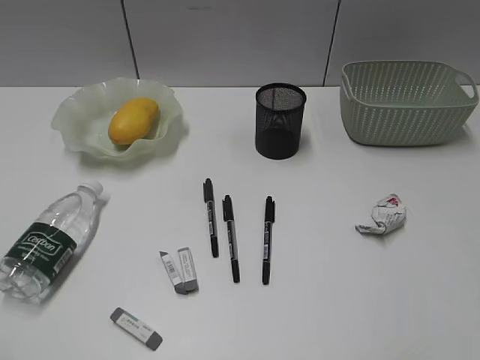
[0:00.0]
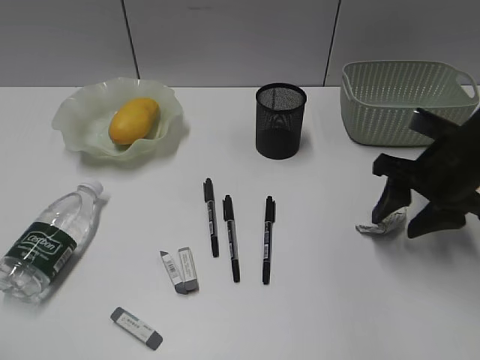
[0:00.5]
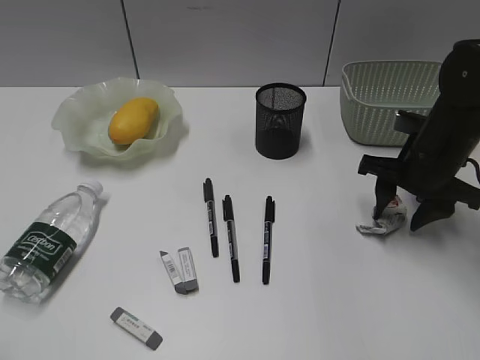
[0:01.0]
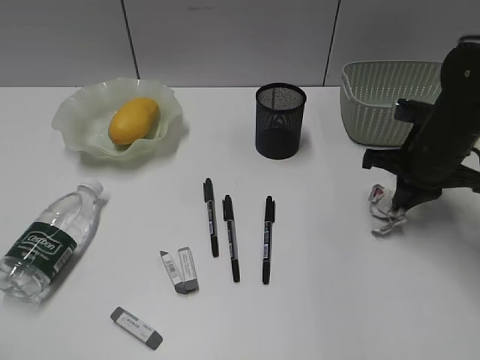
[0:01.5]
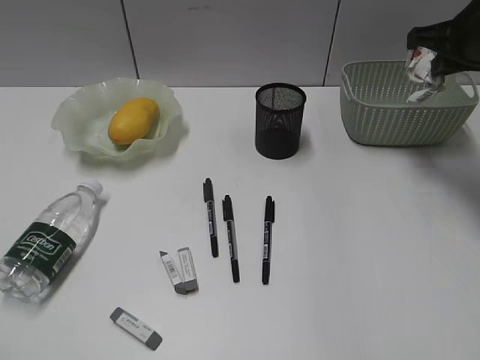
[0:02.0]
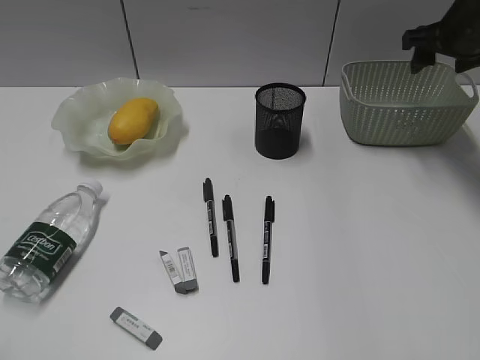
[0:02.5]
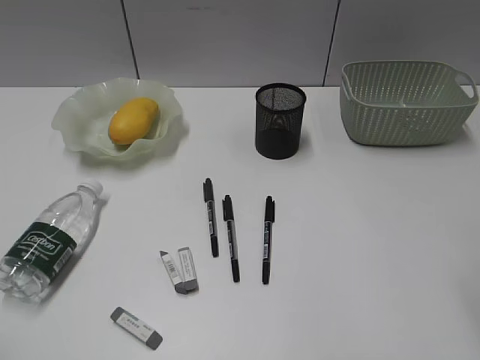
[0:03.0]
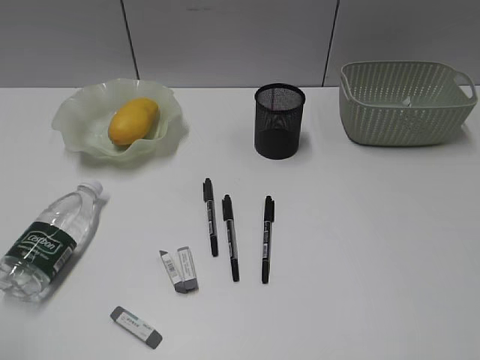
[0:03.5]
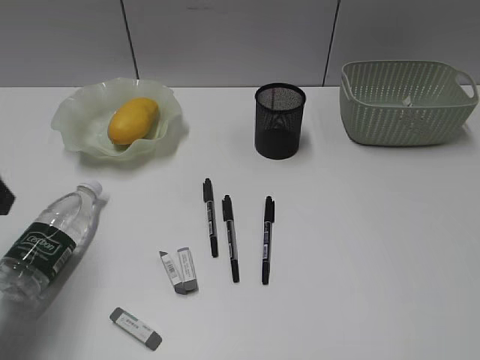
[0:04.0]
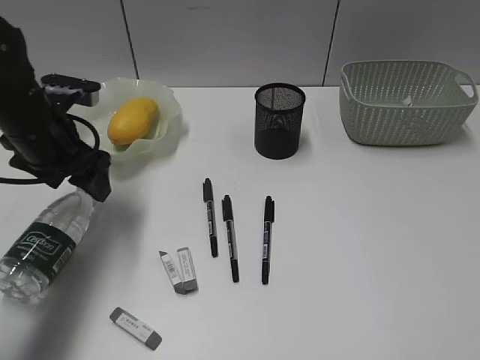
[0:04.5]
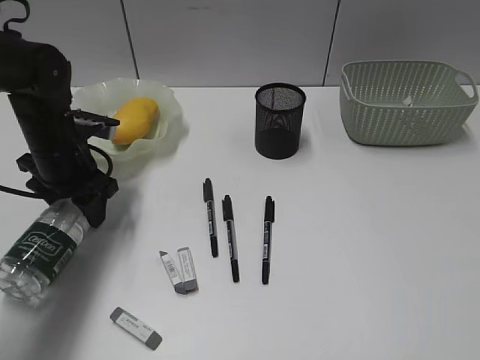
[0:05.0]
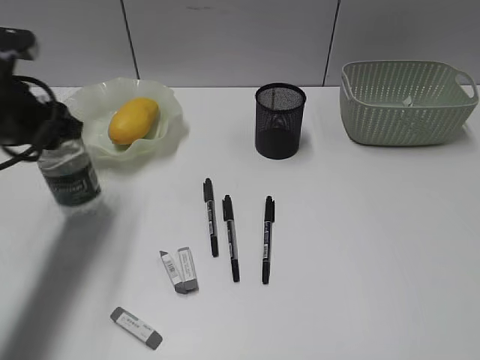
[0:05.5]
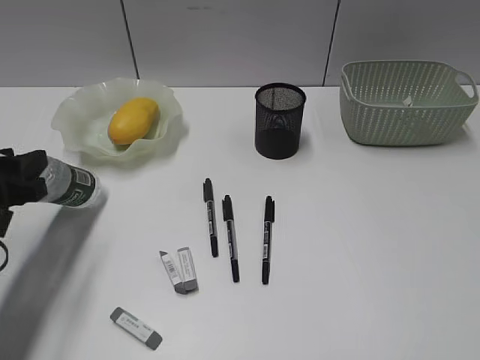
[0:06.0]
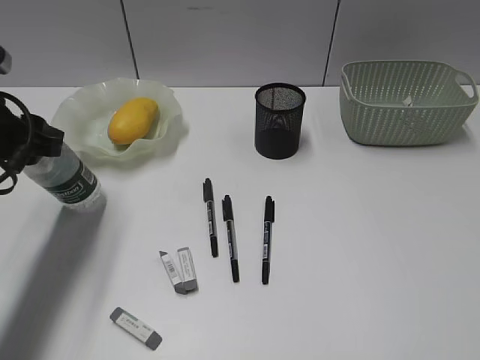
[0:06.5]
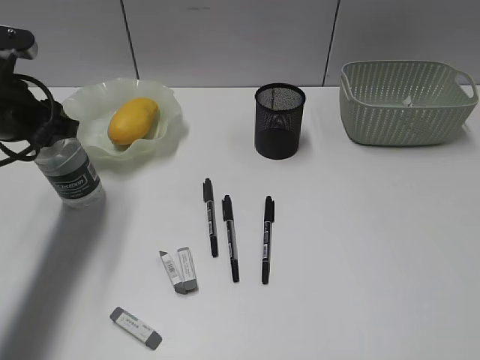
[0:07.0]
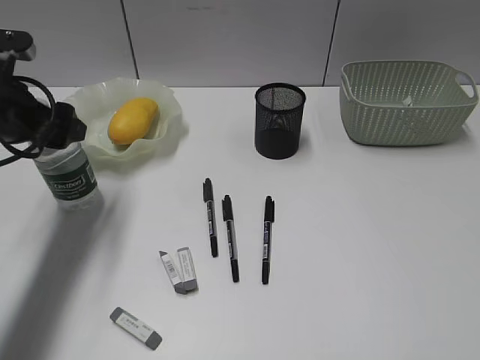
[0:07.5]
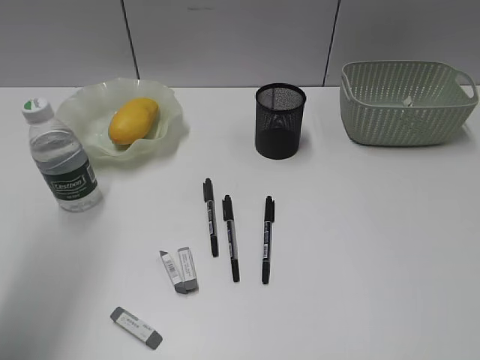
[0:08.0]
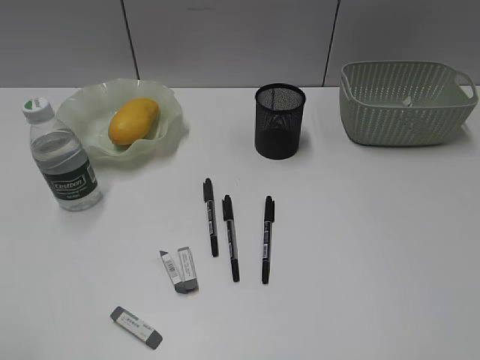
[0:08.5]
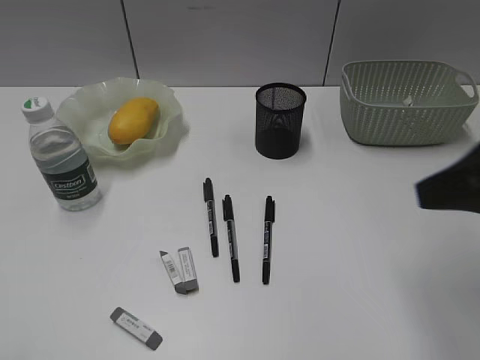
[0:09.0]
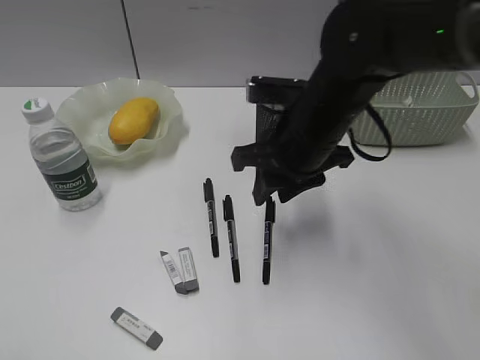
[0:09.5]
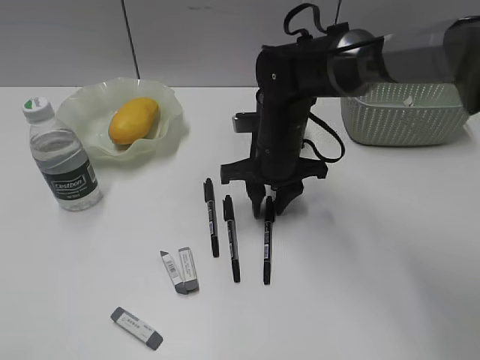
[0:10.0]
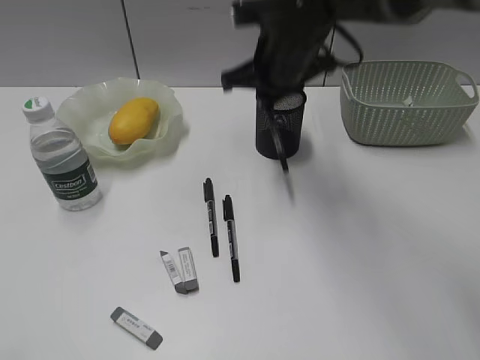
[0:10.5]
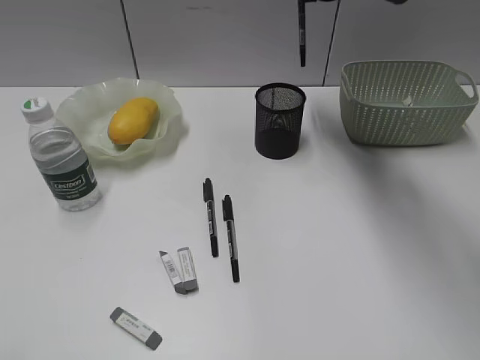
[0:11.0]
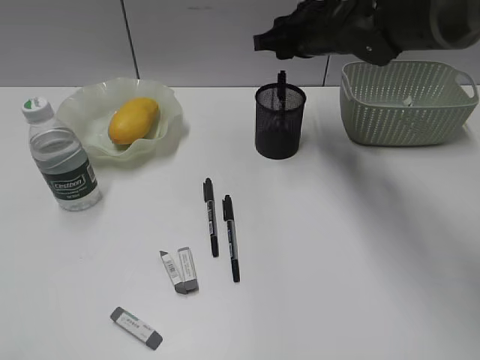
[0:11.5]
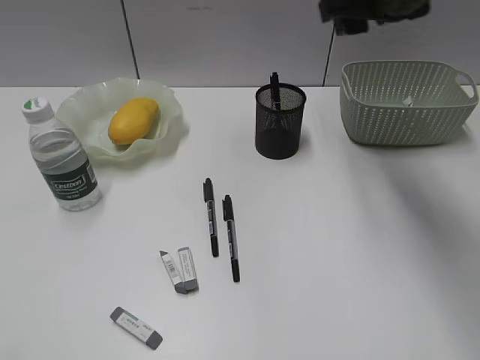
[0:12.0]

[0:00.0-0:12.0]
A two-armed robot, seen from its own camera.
Step, 0:00.0 to 0:01.5: Grasp the waste paper with right gripper.
Step, 0:02.0 to 0:02.5: Place the waste paper in the basket with right gripper.
Step, 0:03.0 to 0:05.0: Grasp the bottle with left gripper.
Step, 0:05.5 to 0:07.5: Stand the bottle with left gripper.
Step, 0:08.0 to 0:10.0: Grasp the black pen with right gripper.
0:00.0 to 0:02.0: The right gripper heads forward, covering about 25 cm, and closes its fingers.
0:02.0 to 0:04.0: The right gripper moves backward, roughly 40 cm, and opens its fingers. Meanwhile the left gripper heads forward, covering about 20 cm, and opens its fingers.
0:04.0 to 0:06.0: The left gripper heads downward, covering about 10 cm, moves about 15 cm forward and comes back, and closes up.
0:06.0 to 0:08.0: The left gripper shifts about 15 cm upward, and opens up.
0:08.0 to 0:10.0: The right gripper shifts about 50 cm forward, to the left and downward; the left gripper shifts some 20 cm backward.
0:10.0 to 0:12.0: The right gripper moves up and down over about 20 cm, changing direction 2 times, and opens its fingers.

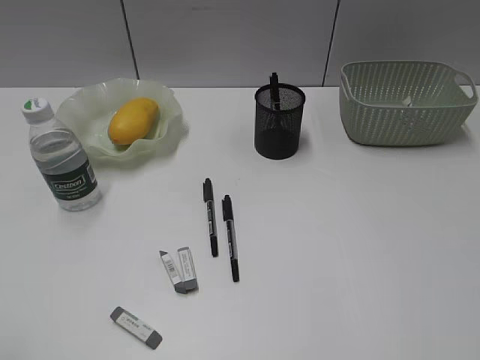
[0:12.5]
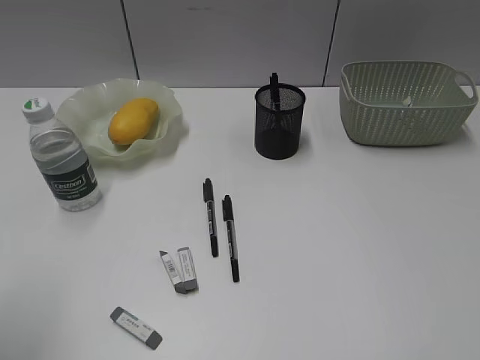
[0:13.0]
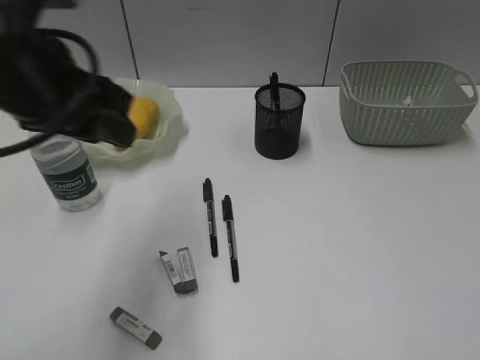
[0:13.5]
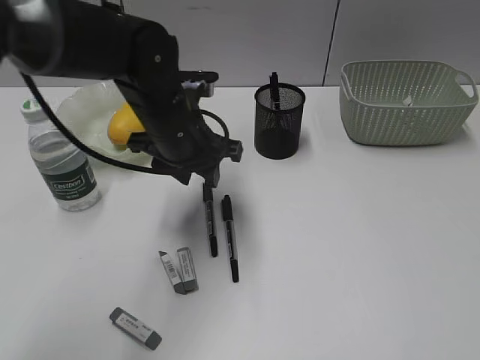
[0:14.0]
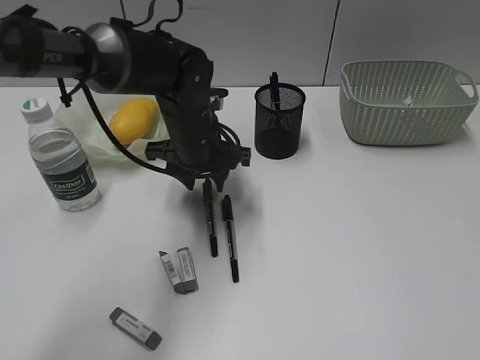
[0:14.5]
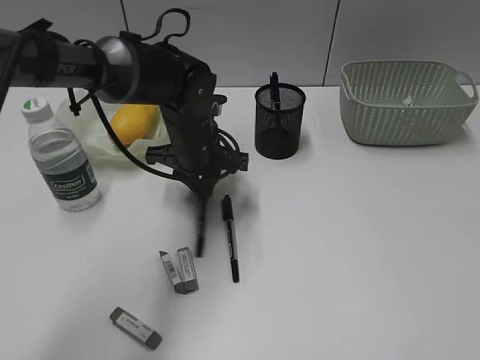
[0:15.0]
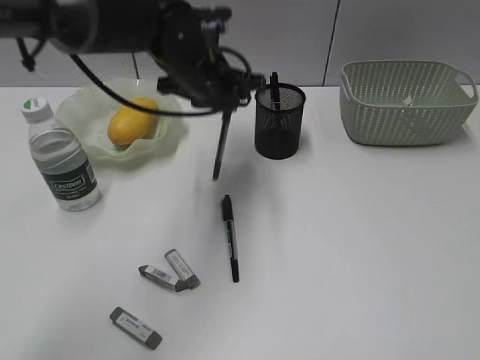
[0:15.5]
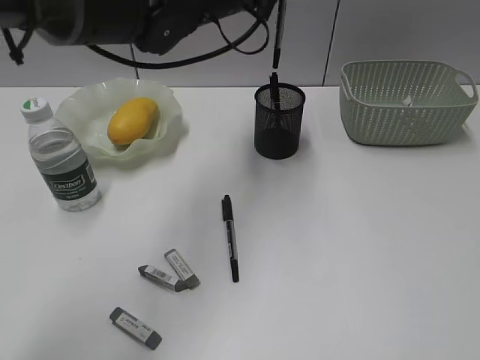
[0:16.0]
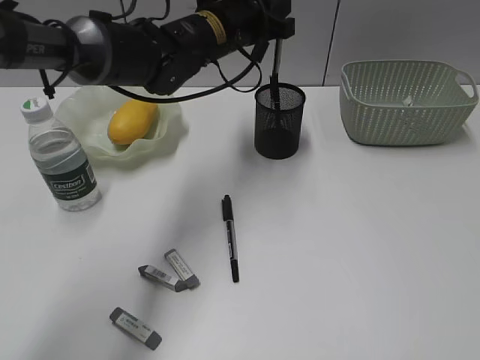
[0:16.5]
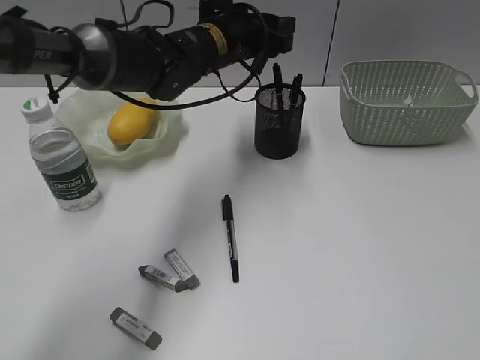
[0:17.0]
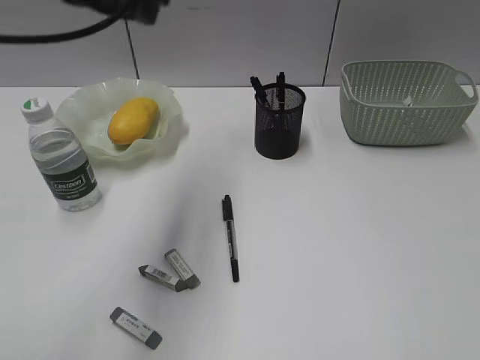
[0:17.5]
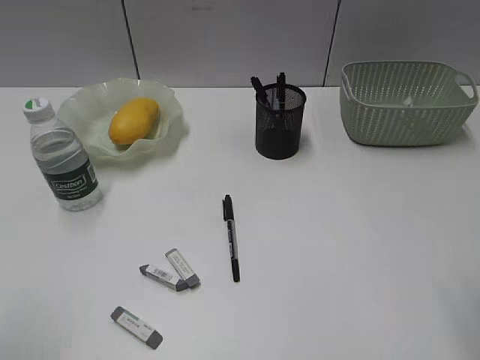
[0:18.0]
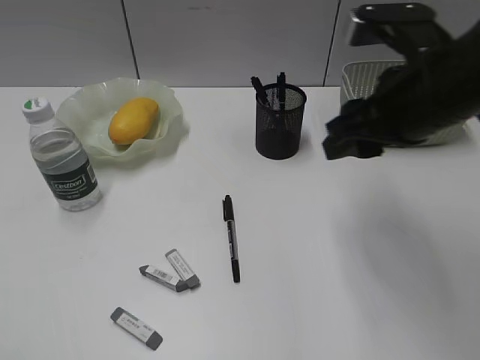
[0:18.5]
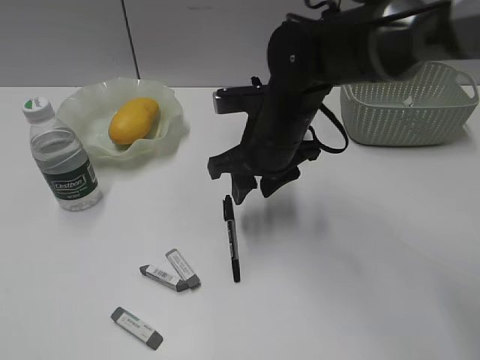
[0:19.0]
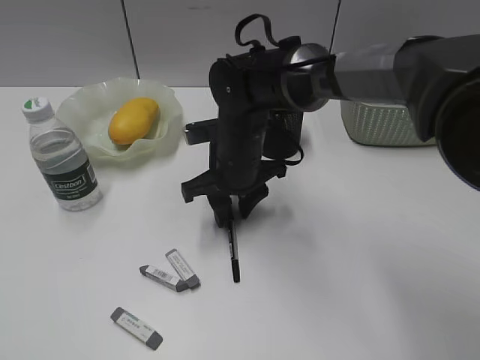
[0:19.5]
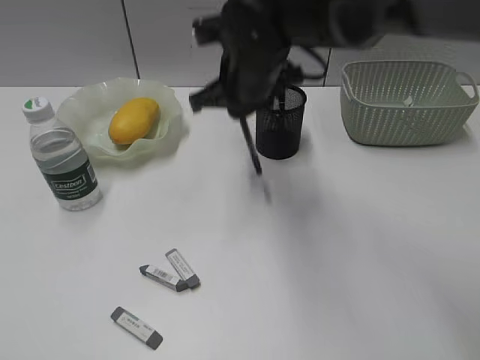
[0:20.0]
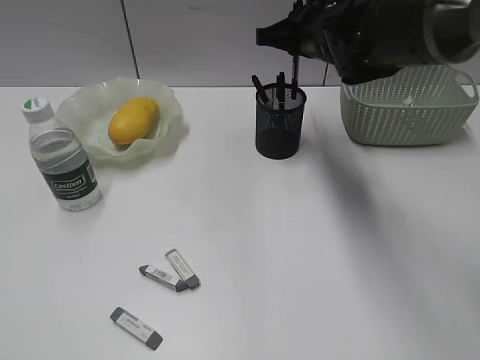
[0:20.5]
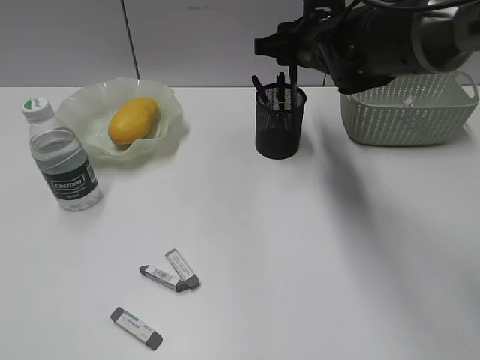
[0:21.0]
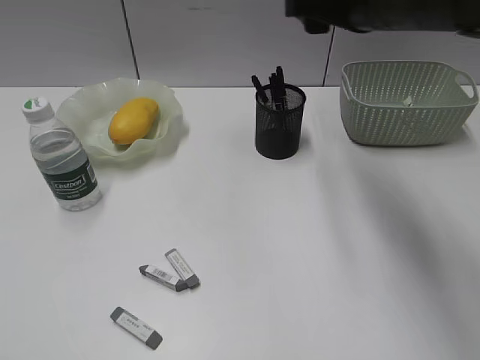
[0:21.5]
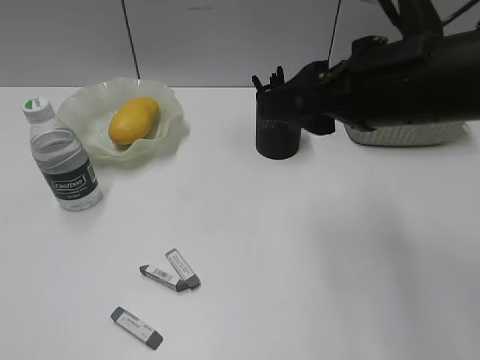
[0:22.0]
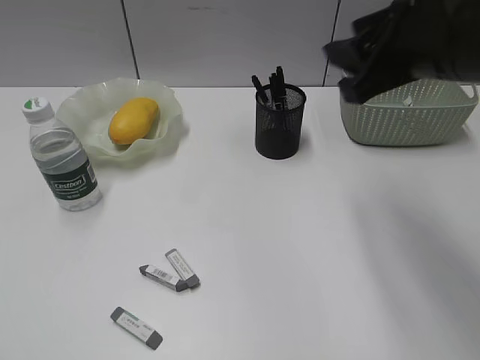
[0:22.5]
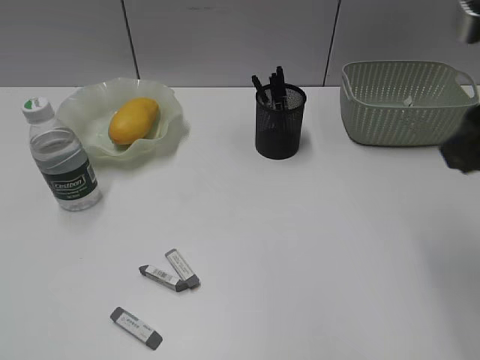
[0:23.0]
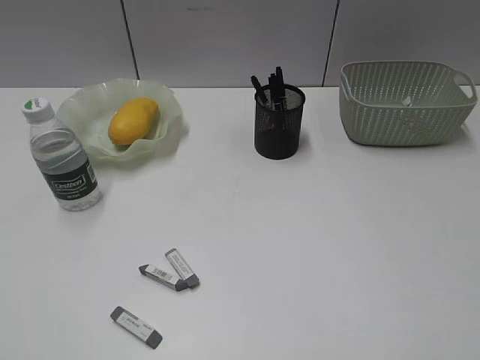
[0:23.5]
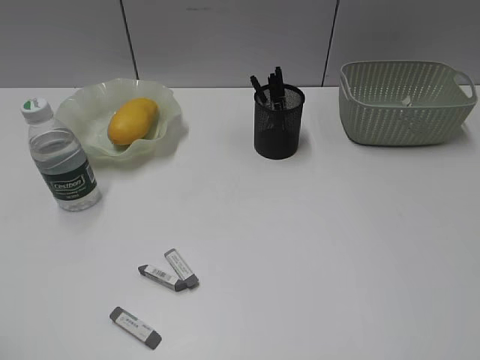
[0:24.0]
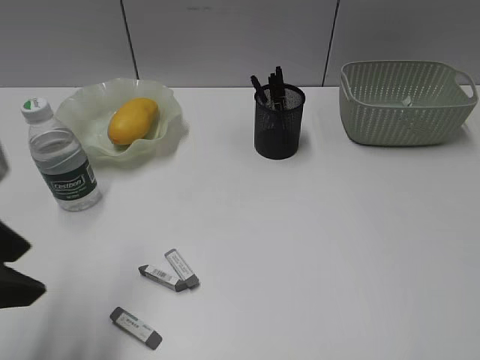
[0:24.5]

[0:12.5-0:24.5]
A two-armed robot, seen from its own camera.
Step, 0:12.5 to 0:15.0: Grasp the black pen with left gripper.
Step, 0:15.5 to 0:17.0: Place the black pen in pen holder with left gripper.
Step, 0:17.5 to 0:19.5: Grasp the black pen with right gripper.
0:12.5 to 0:14.5: The right gripper moves backward, some 10 cm, while the left gripper shifts some 50 cm forward, to the right and downward.
0:14.5 to 0:16.5: The left gripper goes approximately 10 cm upward and forward, and closes up.
0:16.5 to 0:18.5: The right gripper travels forward and to the left by roughly 30 cm. Meanwhile the left gripper goes about 50 cm backward and to the left.
0:18.5 to 0:20.5: The right gripper goes some 15 cm forward and to the left, and closes.
0:20.5 to 0:22.5: The right gripper moves backward, upward and to the right, some 20 cm, and opens up.
0:22.5 to 0:24.5: The left gripper is displaced forward and to the right by roughly 20 cm; the right gripper shifts roughly 30 cm backward and to the right.

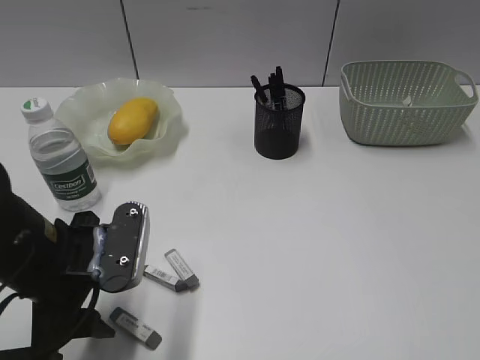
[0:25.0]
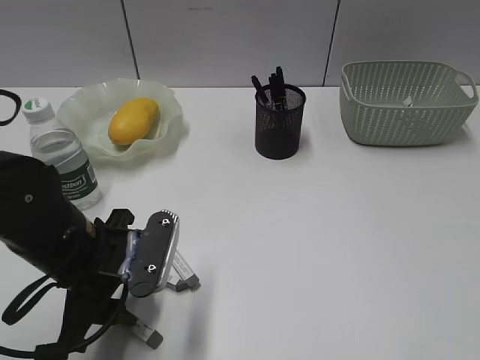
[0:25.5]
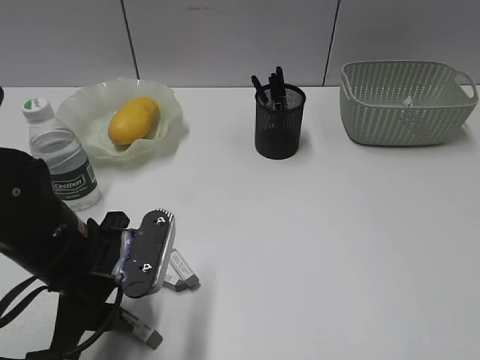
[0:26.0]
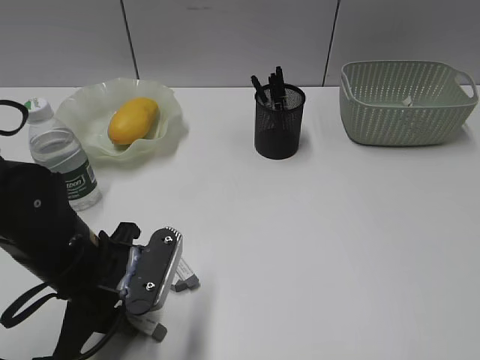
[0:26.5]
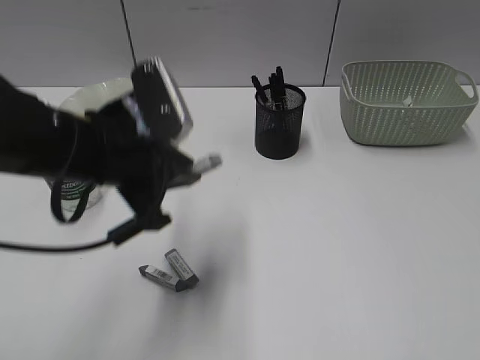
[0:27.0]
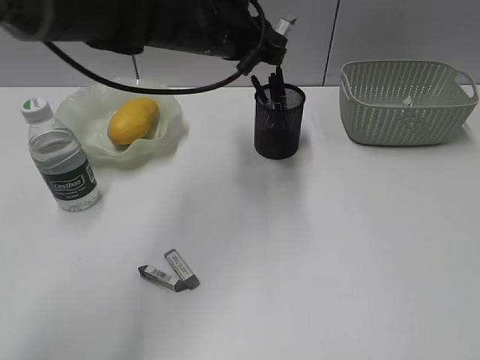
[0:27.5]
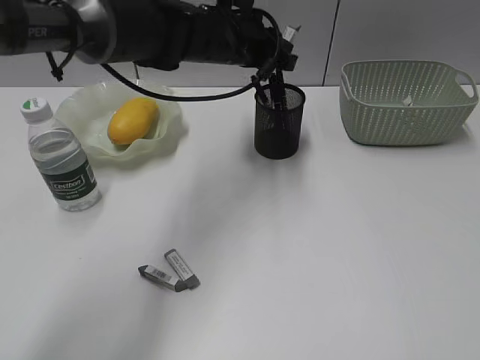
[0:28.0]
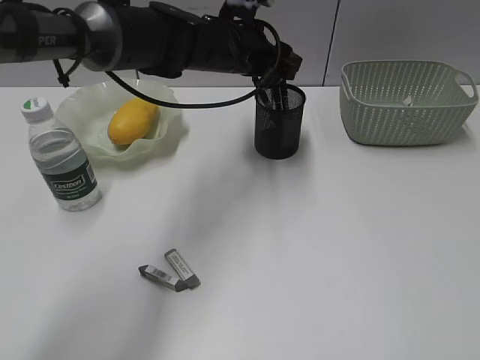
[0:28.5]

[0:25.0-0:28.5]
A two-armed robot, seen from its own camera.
Step, 0:27.0 to 0:28.5: Place the eraser in pen holder with left gripper.
0:25.0 to 0:27.0: The left gripper moves about 10 cm, and closes up.
0:27.0 to 0:28.5: The left gripper shifts roughly 25 cm forward and to the right, and opens its fingers.
